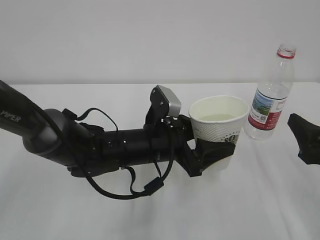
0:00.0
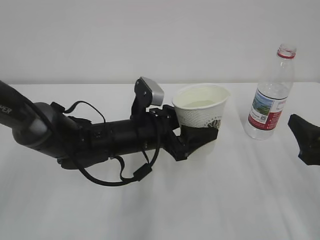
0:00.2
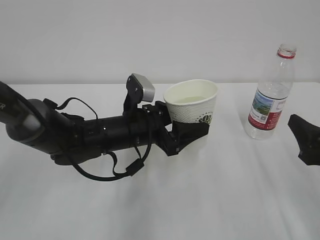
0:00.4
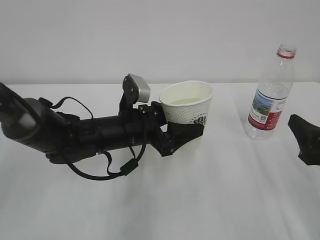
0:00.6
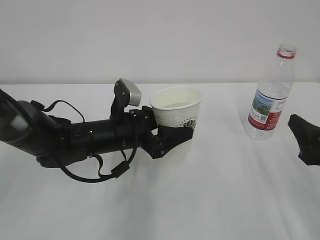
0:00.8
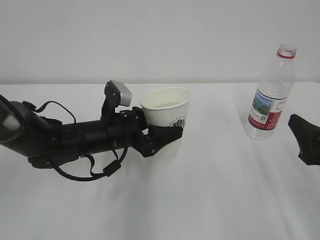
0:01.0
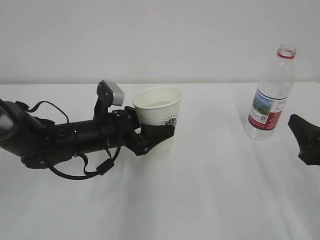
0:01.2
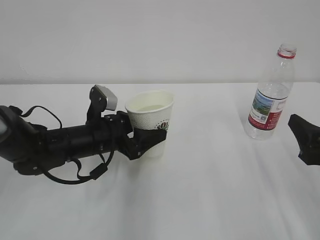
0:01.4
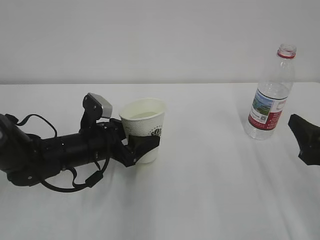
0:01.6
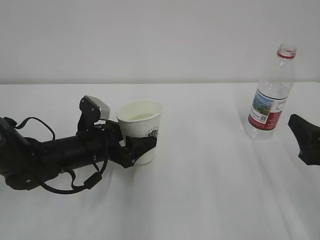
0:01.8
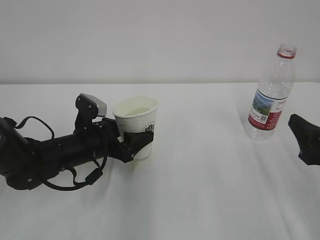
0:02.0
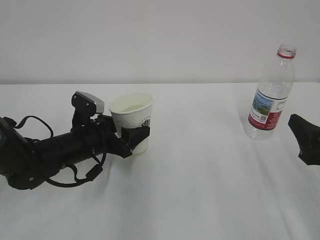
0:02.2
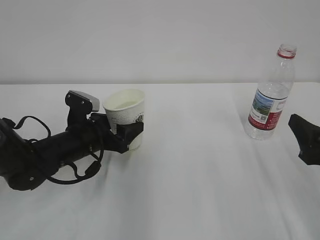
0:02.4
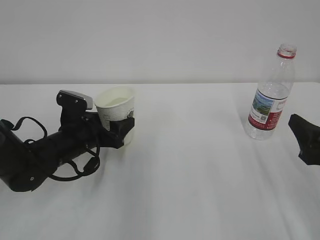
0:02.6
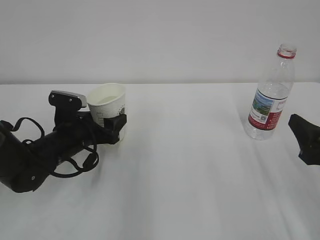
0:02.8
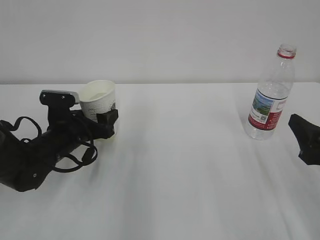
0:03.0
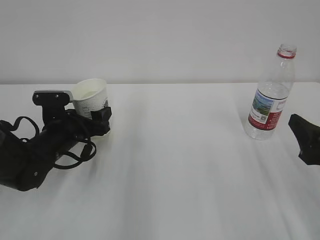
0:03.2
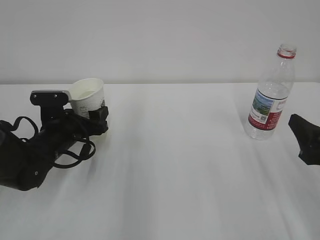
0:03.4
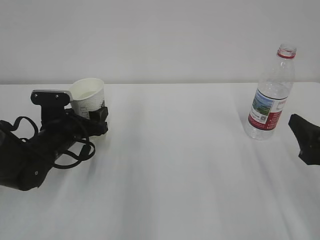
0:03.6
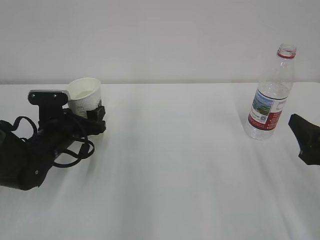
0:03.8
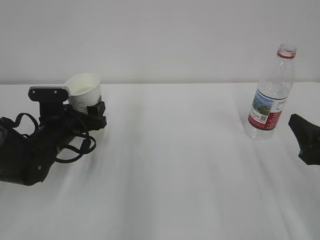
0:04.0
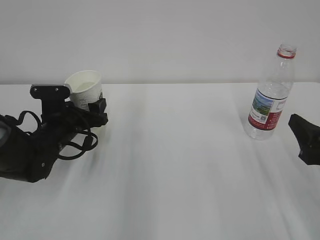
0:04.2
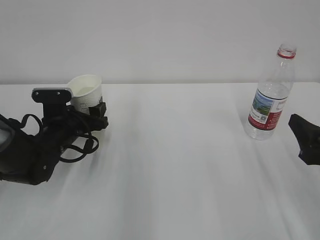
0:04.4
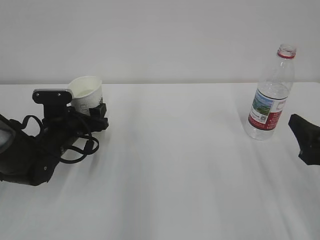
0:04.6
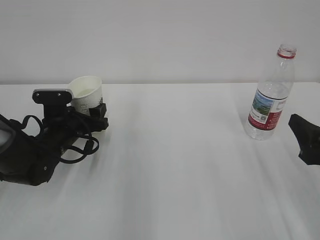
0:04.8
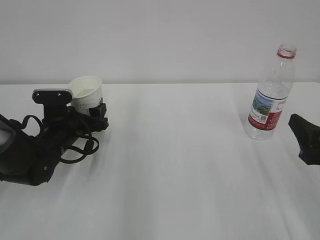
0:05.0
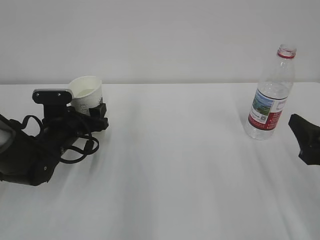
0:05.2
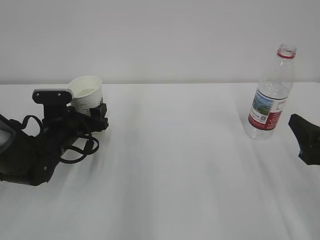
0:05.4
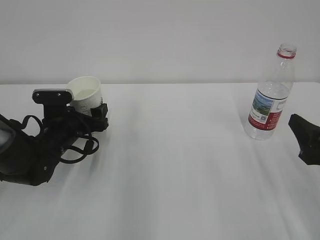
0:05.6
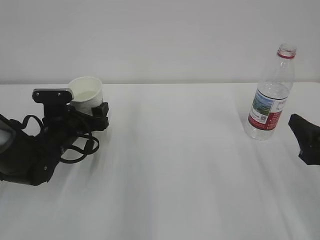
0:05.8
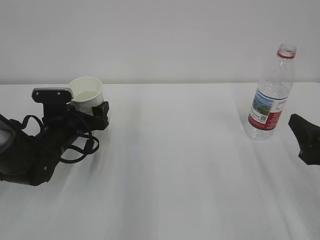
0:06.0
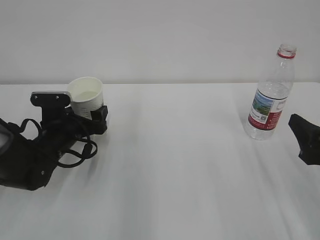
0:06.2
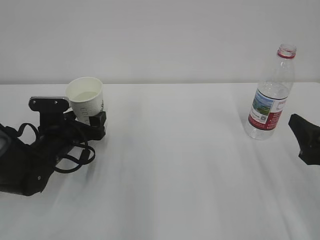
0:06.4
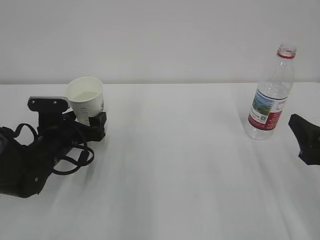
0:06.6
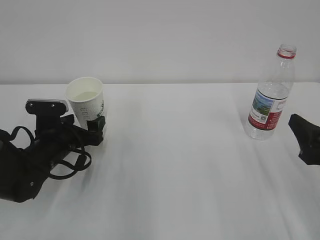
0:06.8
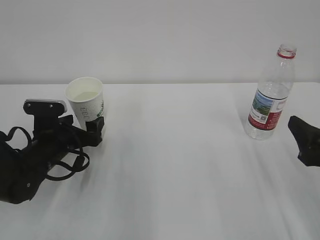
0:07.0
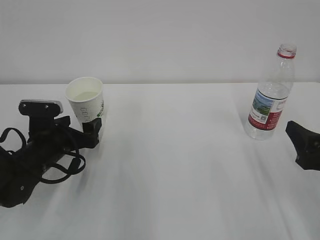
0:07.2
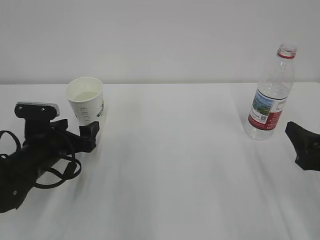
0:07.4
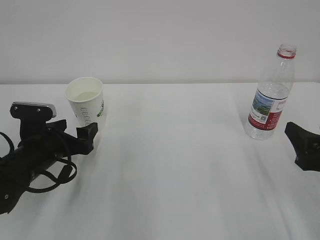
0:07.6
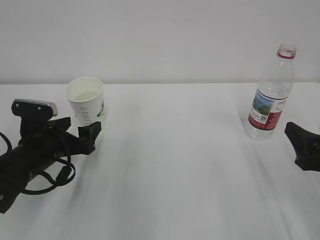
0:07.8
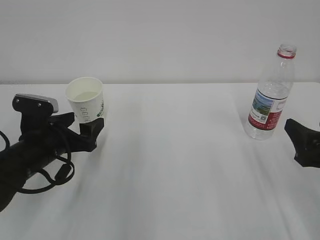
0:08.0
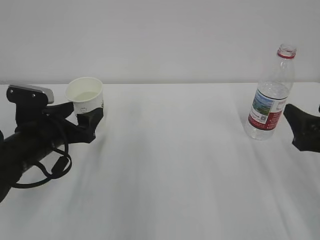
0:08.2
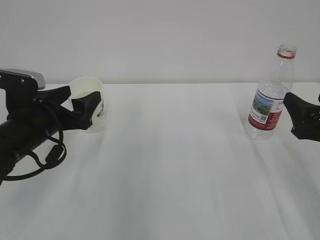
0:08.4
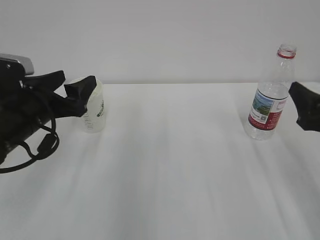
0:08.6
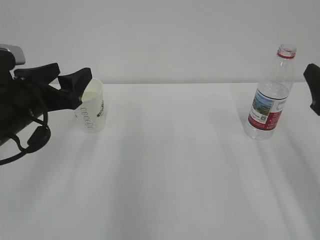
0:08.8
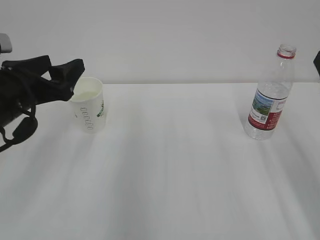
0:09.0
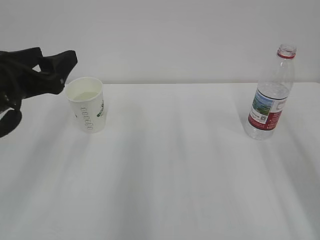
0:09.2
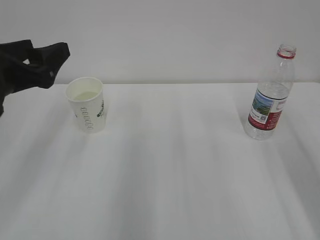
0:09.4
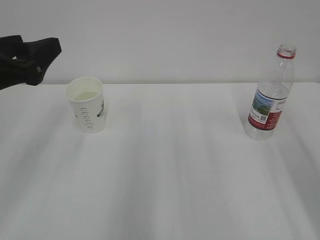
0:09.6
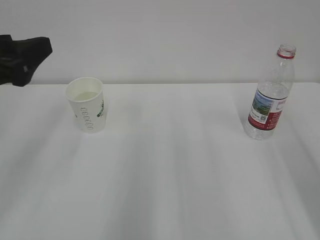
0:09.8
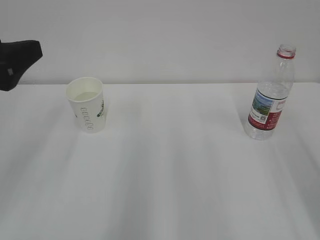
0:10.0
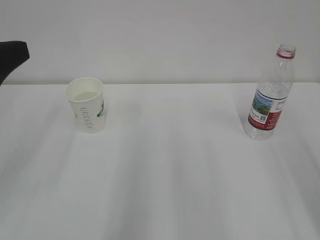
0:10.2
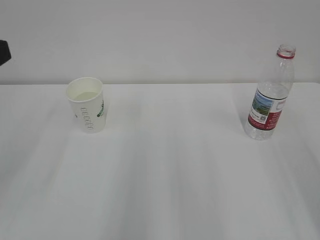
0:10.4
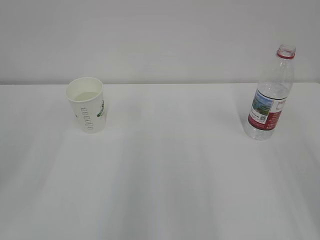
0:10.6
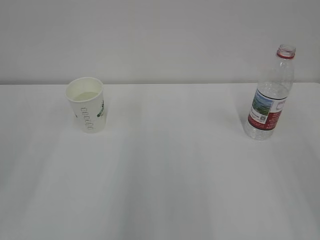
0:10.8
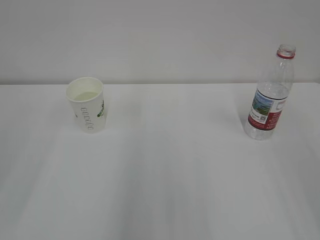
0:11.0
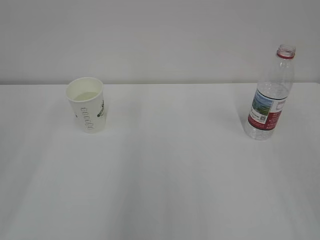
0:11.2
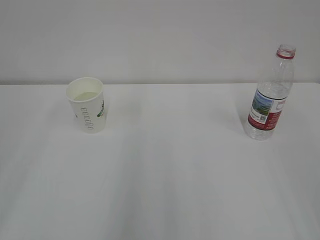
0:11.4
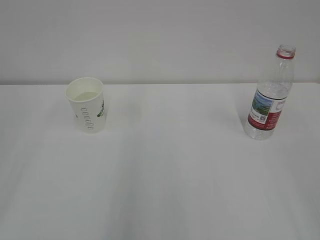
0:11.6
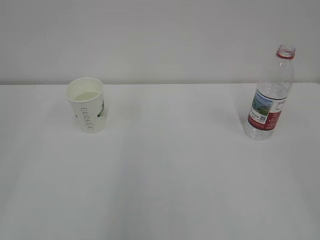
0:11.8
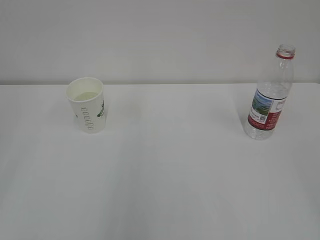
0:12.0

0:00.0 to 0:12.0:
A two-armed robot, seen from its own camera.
0:00.0 to 0:01.6: The left gripper shifts approximately 10 cm to the left.
0:01.6 to 0:03.0: The left gripper ends up roughly 5 cm from where it was.
0:03.0 to 0:04.4: There are only small adjustments of the grippers.
0:04.4 to 0:06.0: The left gripper opens its fingers.
0:06.0 to 0:07.6: The left gripper shifts approximately 5 cm backward.
0:07.6 to 0:09.0: The right gripper goes some 10 cm upward. The left gripper moves upward, roughly 15 cm.
0:09.0 to 0:10.4: The left gripper moves backward and upward, some 15 cm.

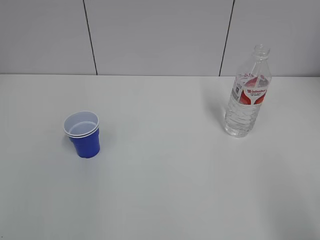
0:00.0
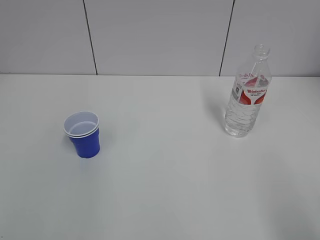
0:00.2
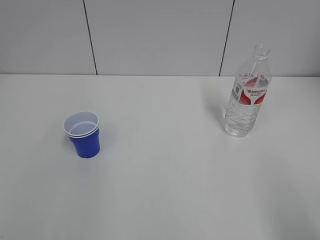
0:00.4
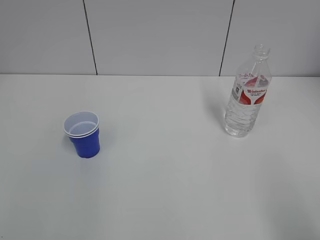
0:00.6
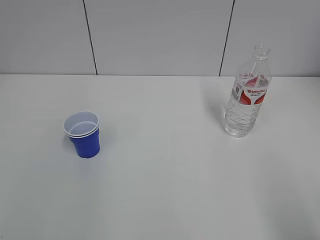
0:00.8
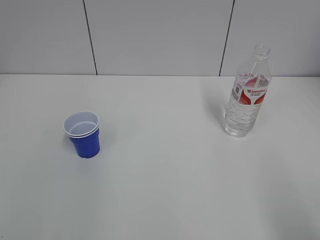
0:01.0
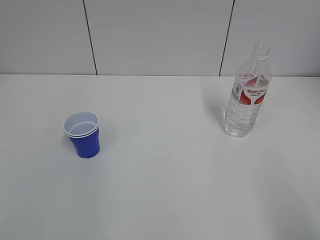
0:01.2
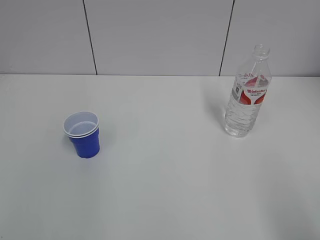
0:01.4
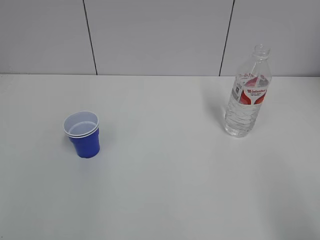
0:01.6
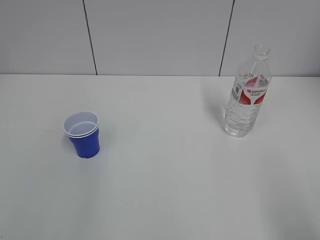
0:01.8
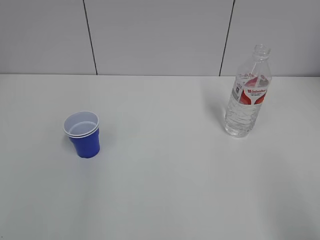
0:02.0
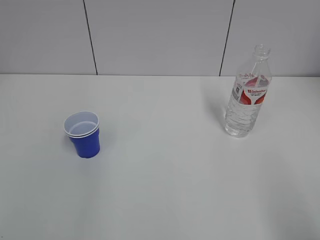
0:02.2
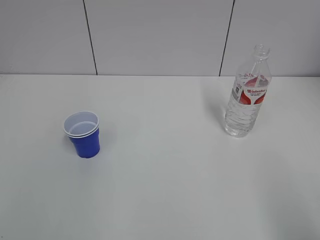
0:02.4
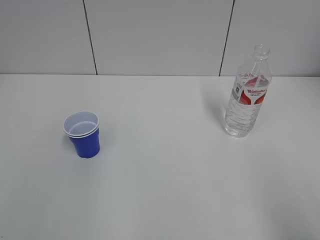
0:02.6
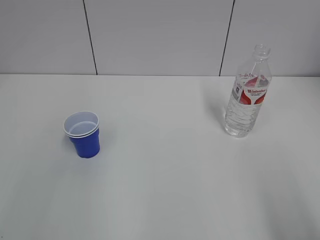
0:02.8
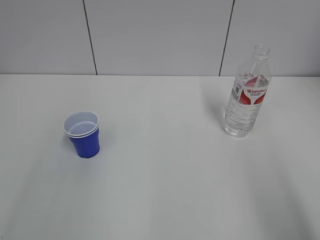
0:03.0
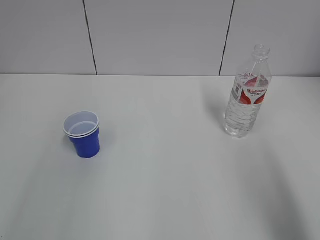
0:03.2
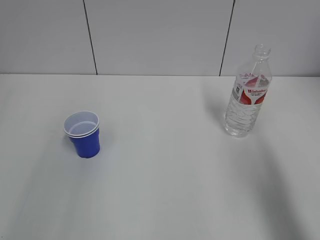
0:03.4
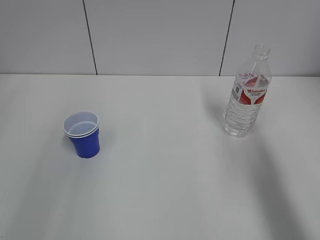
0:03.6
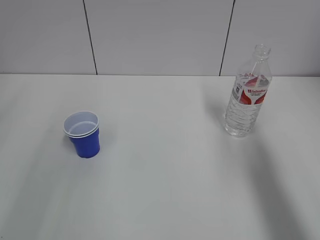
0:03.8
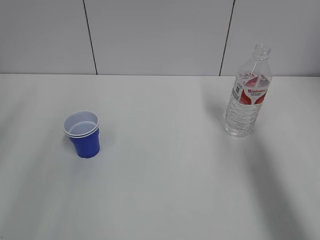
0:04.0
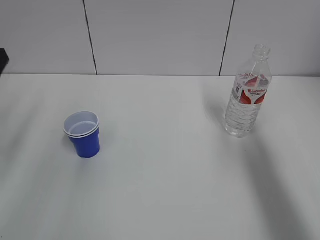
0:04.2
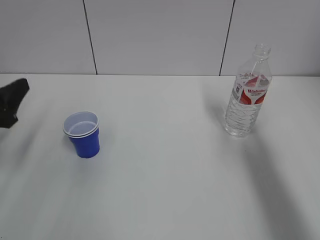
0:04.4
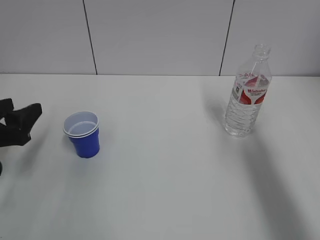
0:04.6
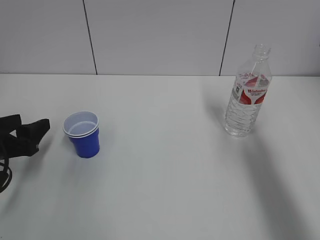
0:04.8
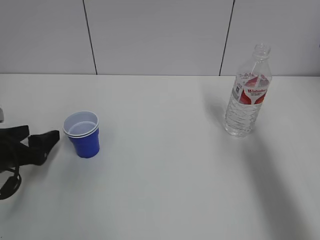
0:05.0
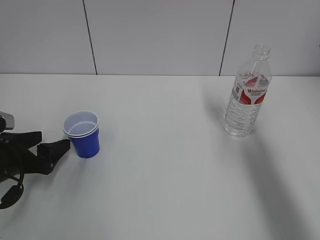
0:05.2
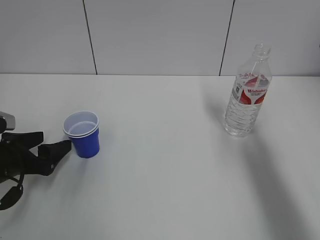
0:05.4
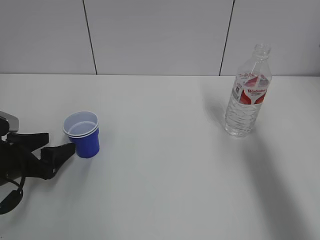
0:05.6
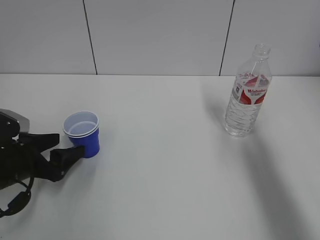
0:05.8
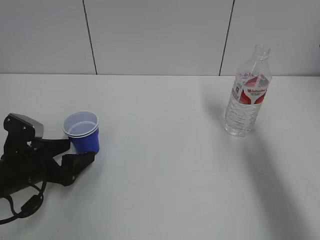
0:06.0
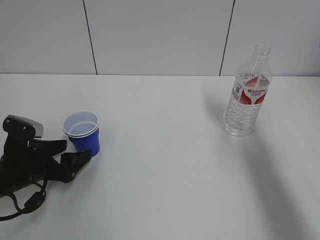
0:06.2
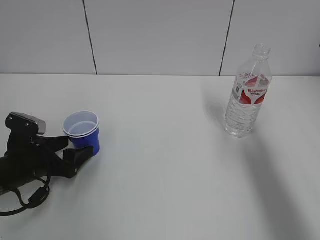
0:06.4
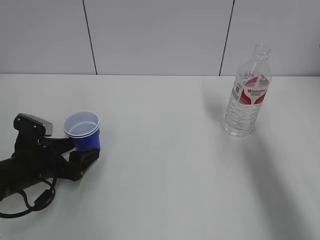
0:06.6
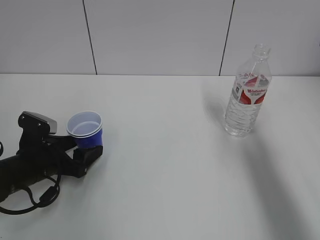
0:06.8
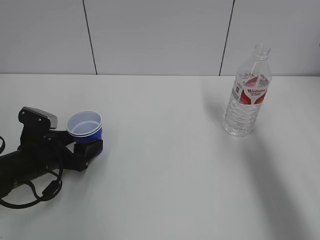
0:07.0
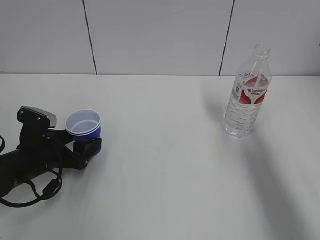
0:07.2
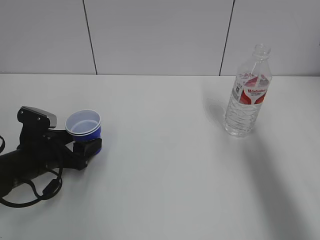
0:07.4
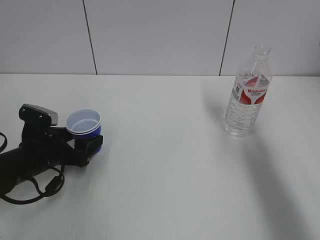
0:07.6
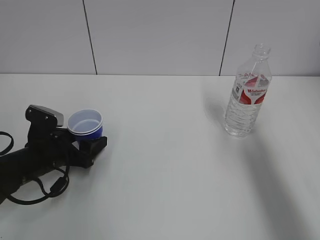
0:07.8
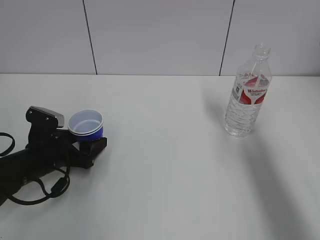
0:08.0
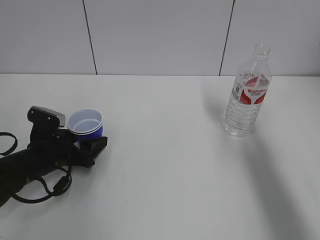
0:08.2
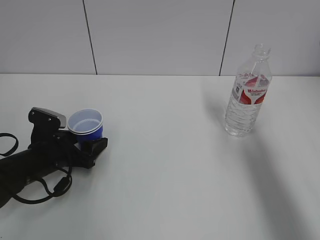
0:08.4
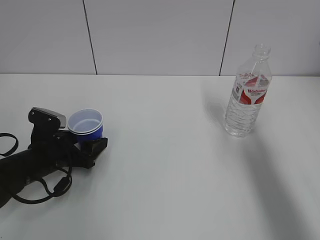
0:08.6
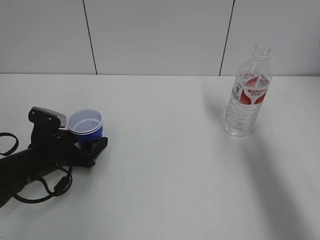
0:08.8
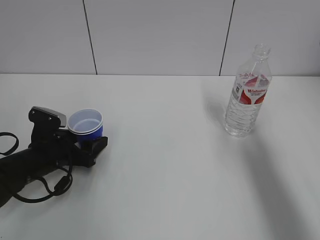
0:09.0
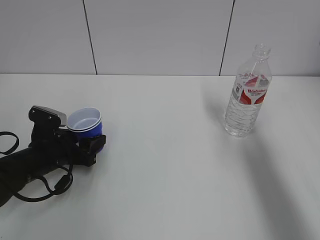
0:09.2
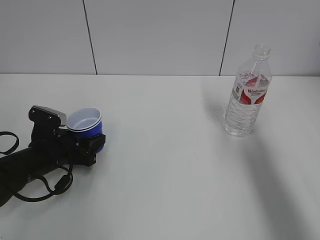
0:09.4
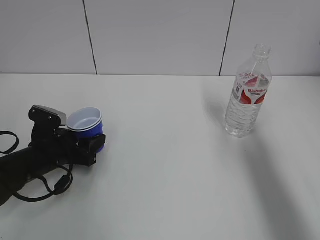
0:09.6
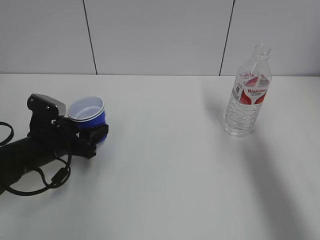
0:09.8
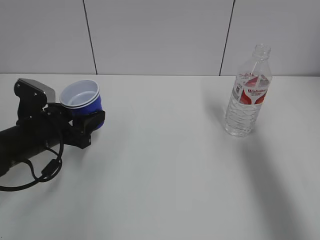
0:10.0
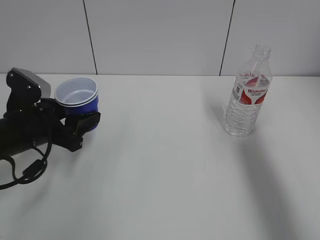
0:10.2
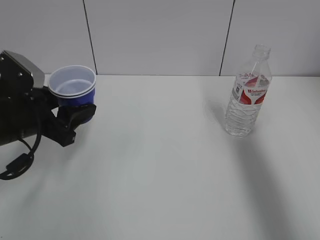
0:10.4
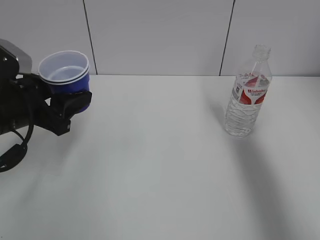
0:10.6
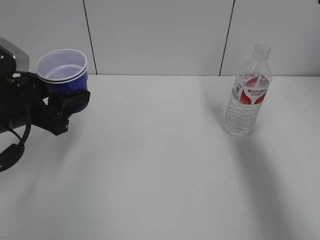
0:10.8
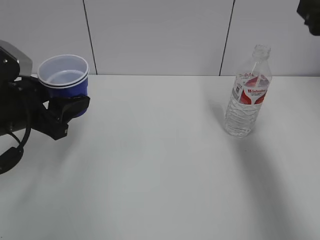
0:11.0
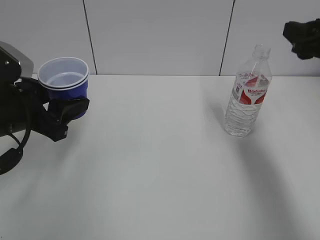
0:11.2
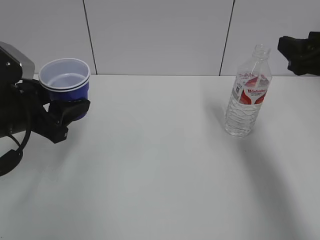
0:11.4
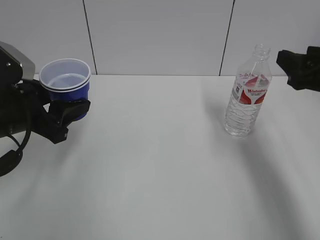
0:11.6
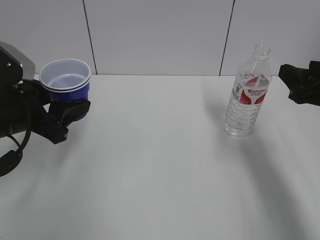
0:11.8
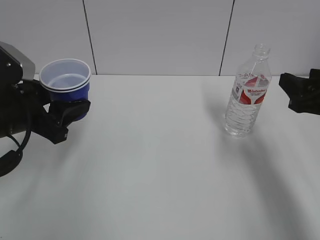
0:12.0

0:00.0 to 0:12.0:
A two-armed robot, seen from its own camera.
Step, 0:00.0 to 0:08.4: Grab the paper cup with the left hand.
0:03.0 to 0:04.4: The right gripper moves forward, some 20 cm. The left gripper is displaced forward and downward by about 25 cm.
0:04.4 to 0:06.0: The left gripper travels downward by approximately 10 cm.
0:06.0 to 0:09.0: The grippers make only small movements.
0:09.0 to 0:10.4: The right gripper is displaced upward by roughly 5 cm, while the left gripper is displaced upward by roughly 15 cm.
0:10.4 to 0:12.0: The right gripper shifts roughly 15 cm downward.
